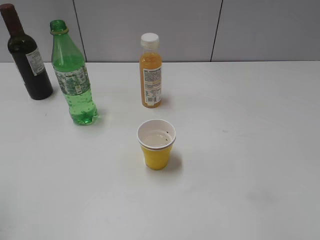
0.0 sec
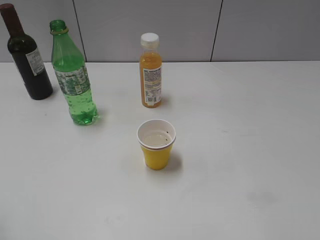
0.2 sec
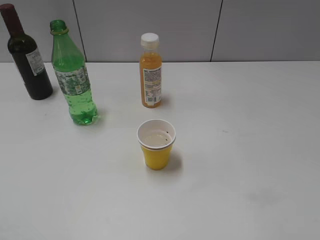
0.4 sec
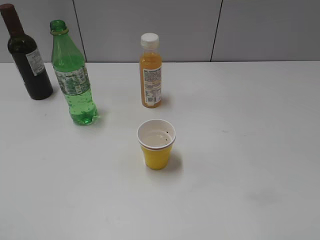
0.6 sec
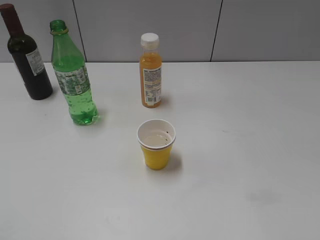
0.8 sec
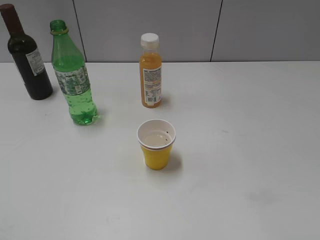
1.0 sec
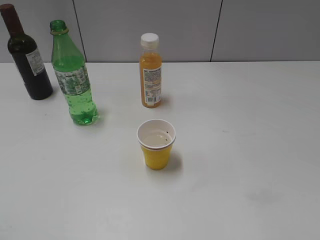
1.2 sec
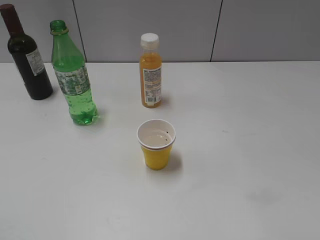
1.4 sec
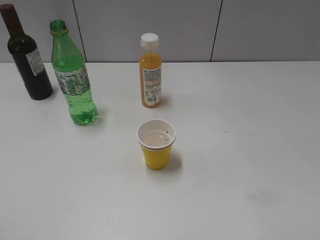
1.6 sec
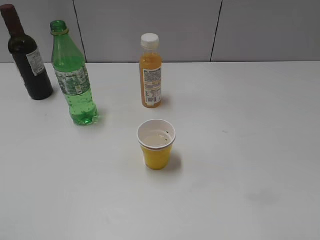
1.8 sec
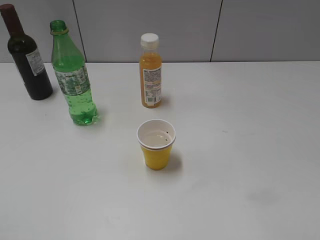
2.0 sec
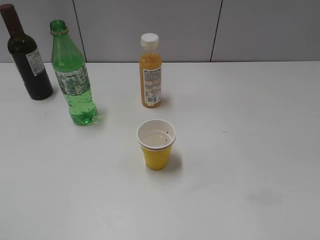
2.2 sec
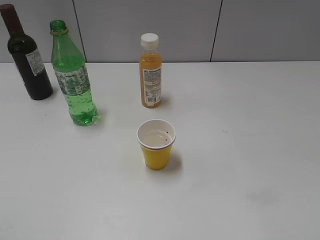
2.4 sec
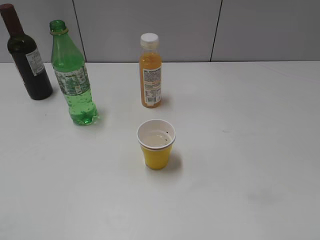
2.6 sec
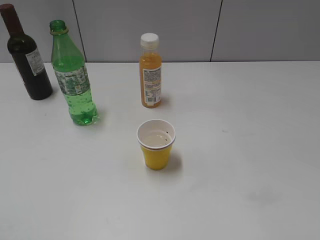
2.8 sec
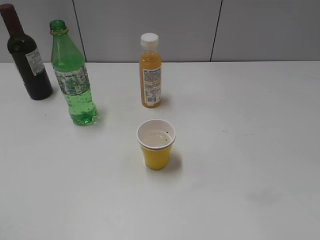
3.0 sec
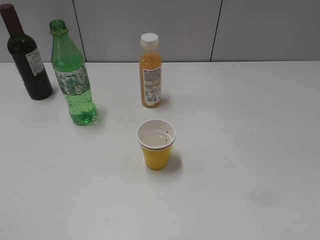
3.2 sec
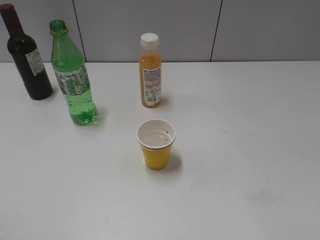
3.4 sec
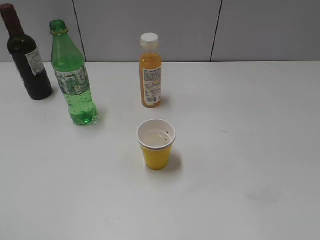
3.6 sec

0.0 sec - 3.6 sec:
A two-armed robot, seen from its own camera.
1.8 sec - 3.6 sec: Neither gripper changes place.

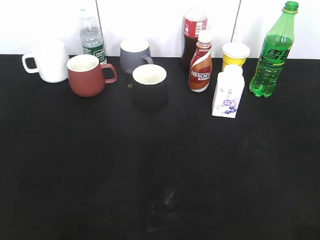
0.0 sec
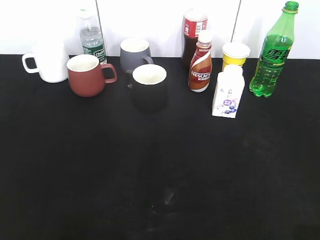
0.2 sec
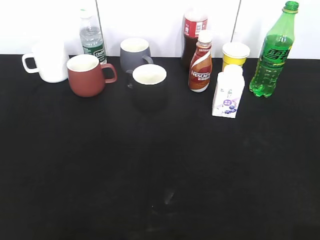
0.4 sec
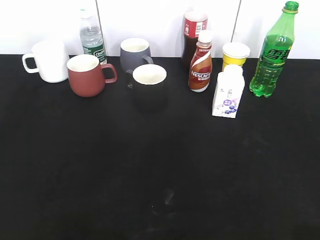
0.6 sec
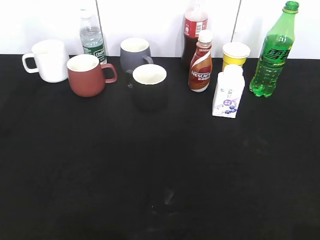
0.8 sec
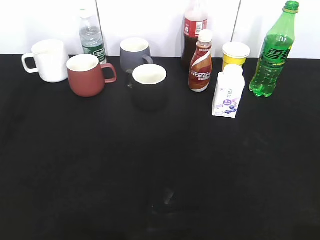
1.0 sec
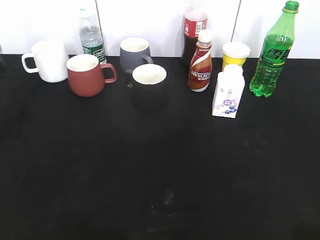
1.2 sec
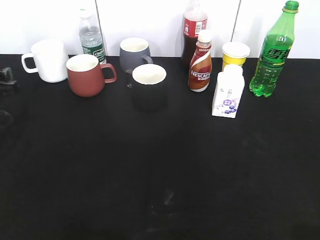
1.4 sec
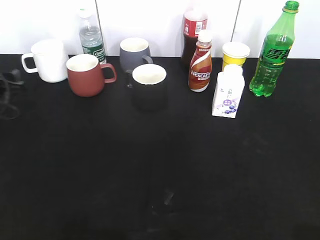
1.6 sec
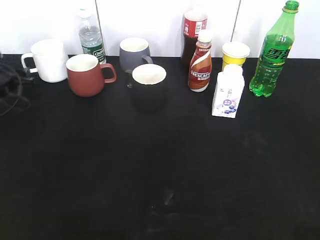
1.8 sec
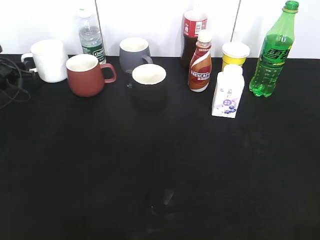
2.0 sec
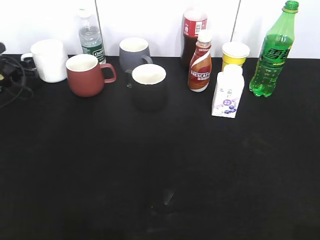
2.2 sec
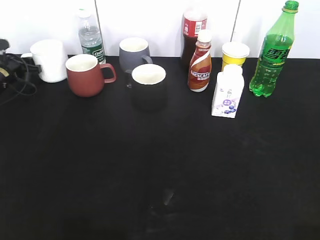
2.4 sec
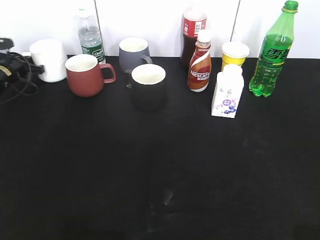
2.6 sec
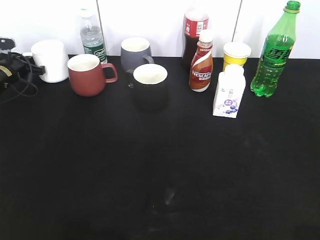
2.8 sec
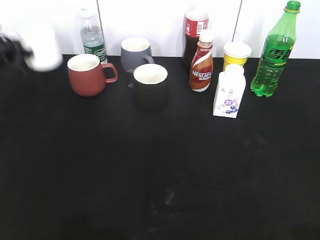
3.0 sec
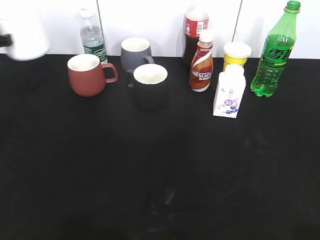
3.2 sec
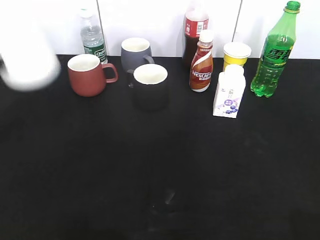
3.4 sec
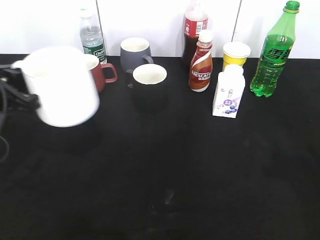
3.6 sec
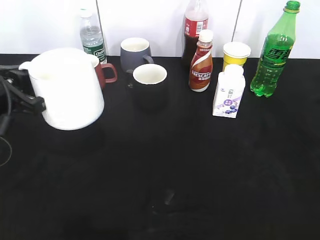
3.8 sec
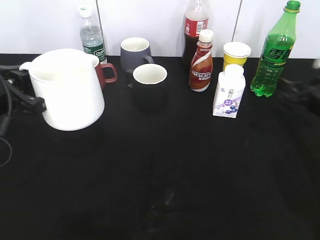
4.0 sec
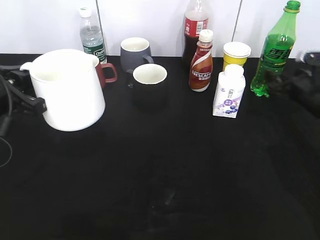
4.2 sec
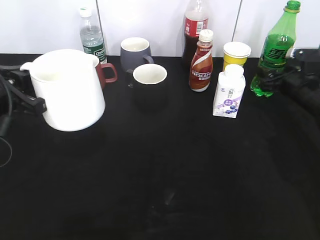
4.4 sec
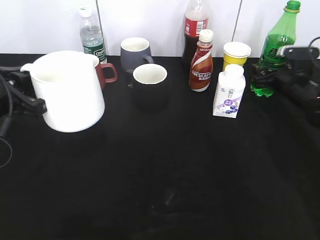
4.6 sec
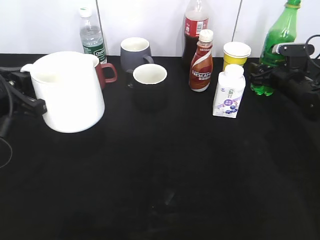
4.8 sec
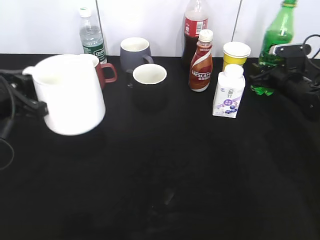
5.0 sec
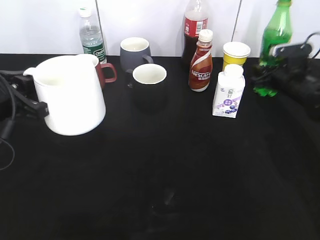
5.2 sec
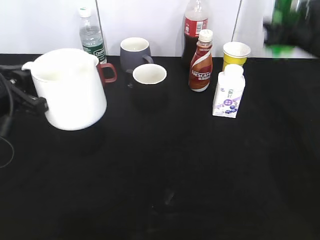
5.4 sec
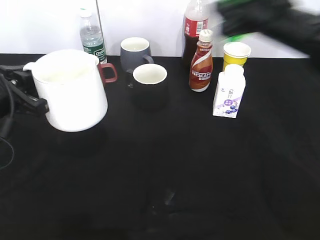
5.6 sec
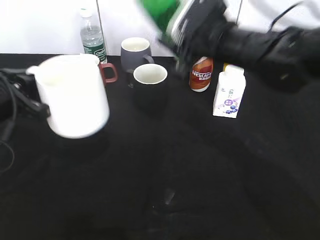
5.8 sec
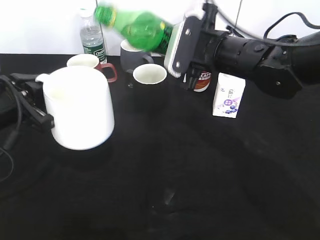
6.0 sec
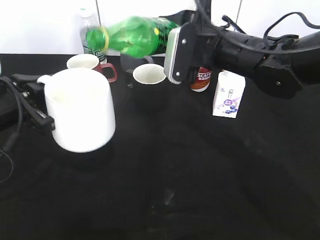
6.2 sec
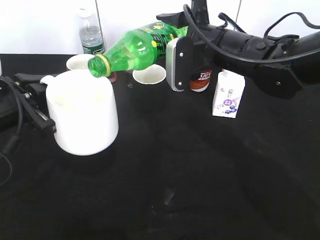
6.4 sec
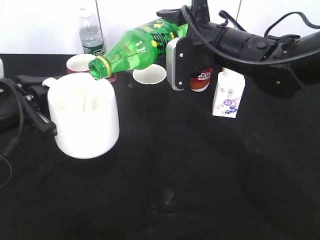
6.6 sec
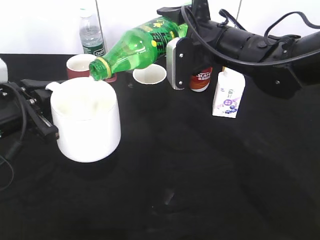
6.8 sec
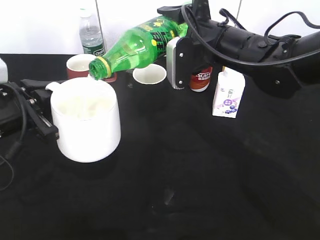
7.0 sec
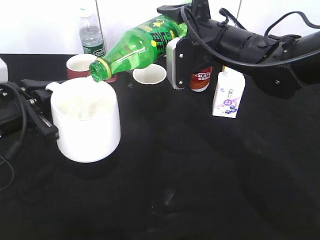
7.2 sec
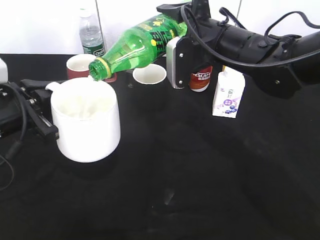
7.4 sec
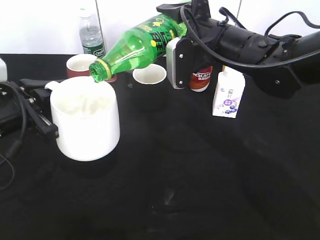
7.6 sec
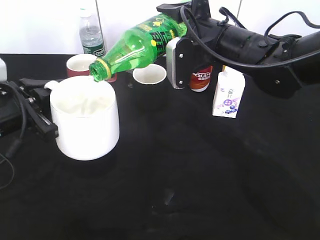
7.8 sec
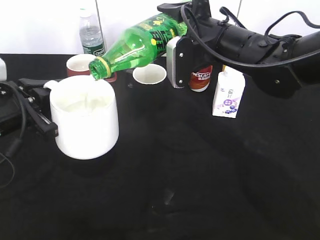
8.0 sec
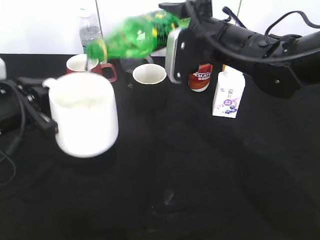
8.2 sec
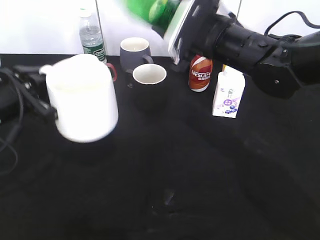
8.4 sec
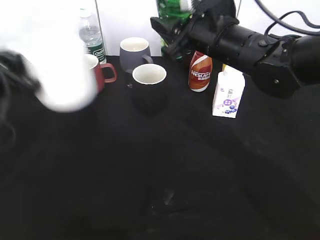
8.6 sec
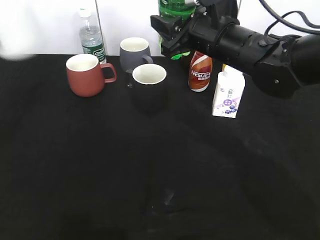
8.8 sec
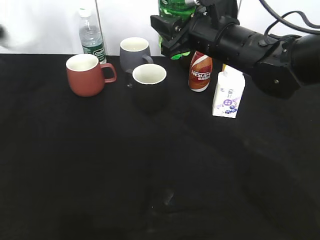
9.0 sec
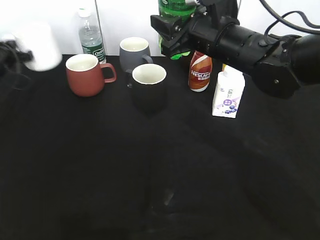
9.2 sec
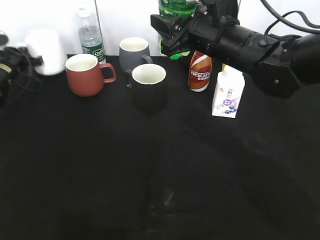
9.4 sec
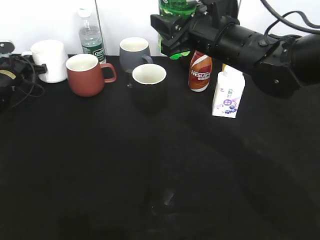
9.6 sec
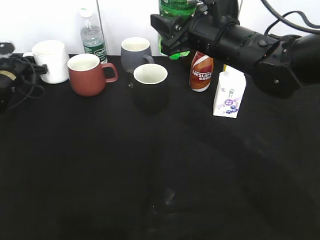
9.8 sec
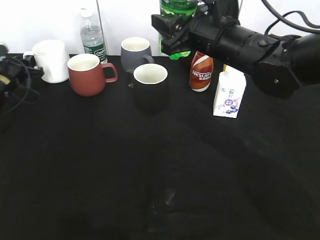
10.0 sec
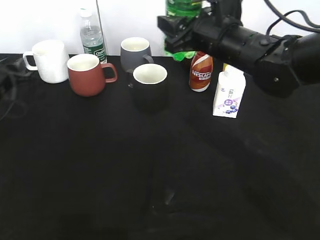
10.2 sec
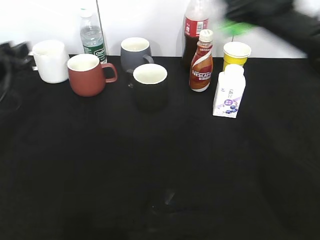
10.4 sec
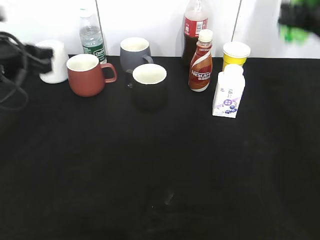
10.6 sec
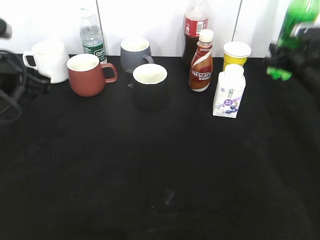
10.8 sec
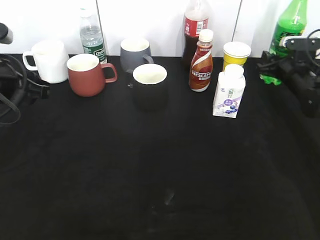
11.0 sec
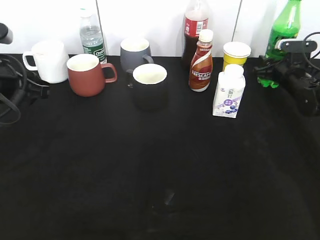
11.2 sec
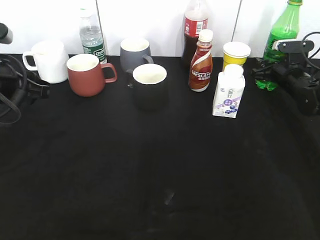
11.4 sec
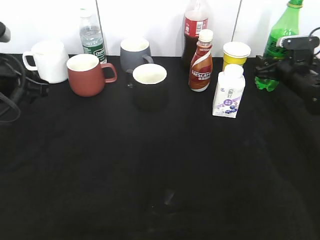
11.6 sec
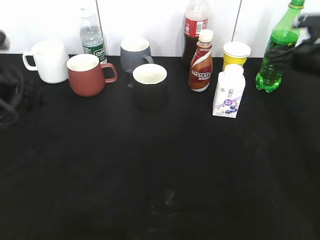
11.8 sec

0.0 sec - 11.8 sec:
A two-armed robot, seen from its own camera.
Step, 2.8 sec - 3.6 sec: Lift the white cup with left gripper.
Step, 3.8 sec - 5.0 sec: Grasp the bottle with sprite with right gripper.
Step, 5.2 sec - 8.2 sec: Pour the sprite from bottle to cup with right gripper.
Step, 8.6 sec - 10.0 sec: Place the white cup on the table with left gripper.
Step, 10.2 sec - 11.6 sec: Place the sprite bottle on the table with right gripper.
0.0 sec - 1.4 sec: The left gripper shifts about 35 cm forward and downward.
1.4 sec - 3.0 sec: The left gripper is displaced forward by about 15 cm, and closes up.
3.0 sec - 4.4 sec: The left gripper travels backward and to the right by some 30 cm; the right gripper moves forward and downward, about 50 cm, and opens.
4.4 sec - 6.0 sec: The right gripper heads to the left and upward, covering approximately 25 cm, and closes up.
7.4 sec - 8.8 sec: The left gripper heads to the left and forward, covering some 15 cm.
8.8 sec - 10.4 sec: The left gripper is displaced downward by roughly 5 cm, reaches approximately 20 cm forward, then returns, and opens its fingers. The right gripper travels to the right by approximately 10 cm.
10.4 sec - 11.8 sec: The left gripper shifts about 5 cm backward; the right gripper is displaced to the right and downward by approximately 15 cm, and opens.

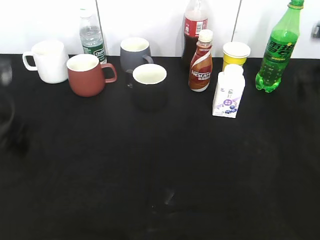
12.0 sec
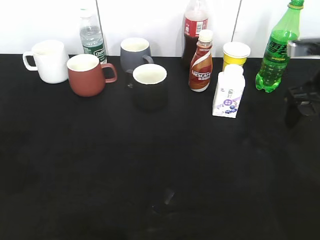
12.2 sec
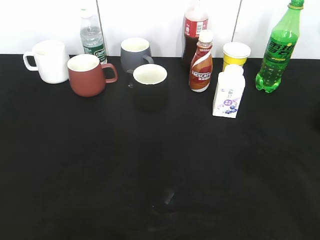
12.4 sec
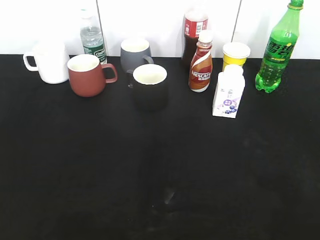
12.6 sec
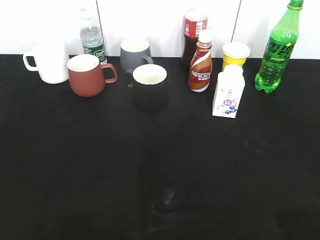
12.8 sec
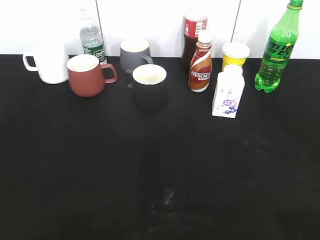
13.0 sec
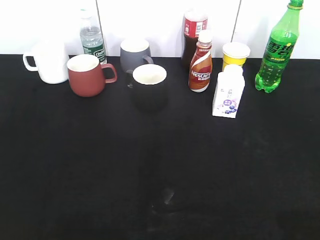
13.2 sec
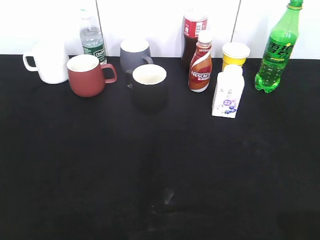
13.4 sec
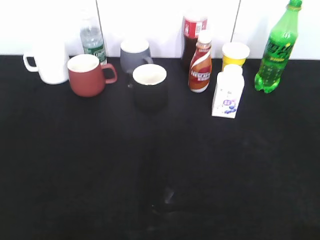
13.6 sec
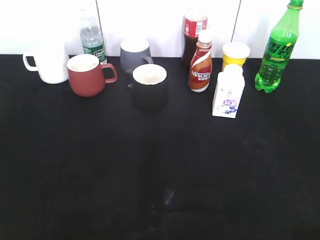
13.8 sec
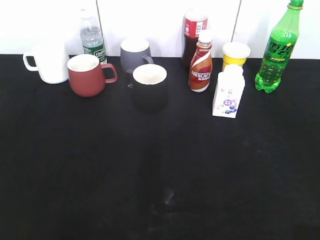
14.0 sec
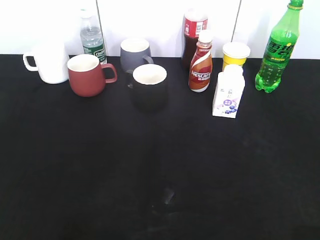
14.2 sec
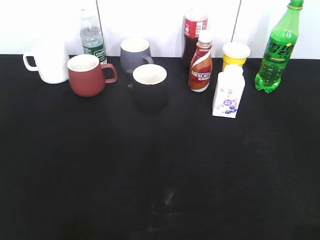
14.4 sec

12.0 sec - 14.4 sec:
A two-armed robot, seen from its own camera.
12.0 sec - 13.2 sec: Both grippers travel together backward, approximately 30 cm.

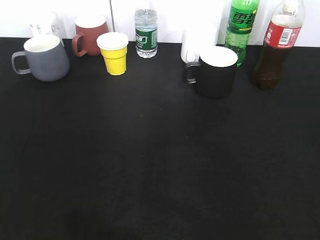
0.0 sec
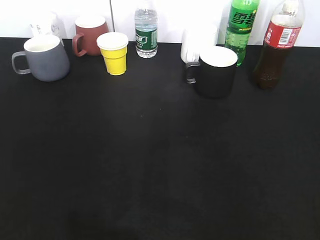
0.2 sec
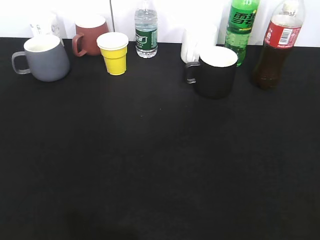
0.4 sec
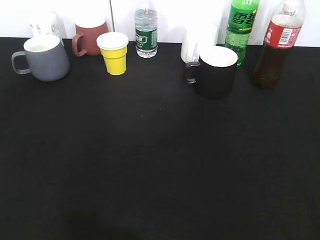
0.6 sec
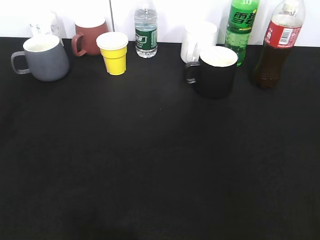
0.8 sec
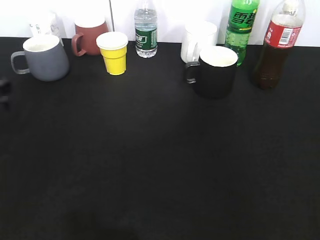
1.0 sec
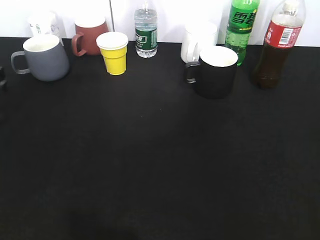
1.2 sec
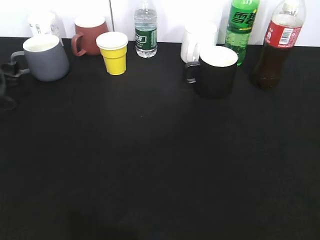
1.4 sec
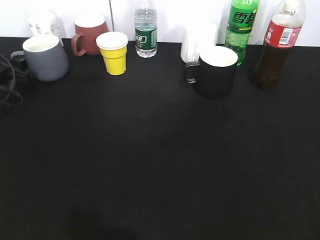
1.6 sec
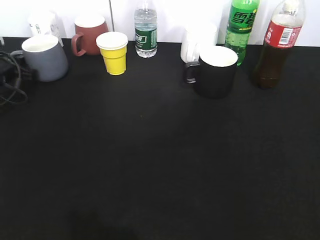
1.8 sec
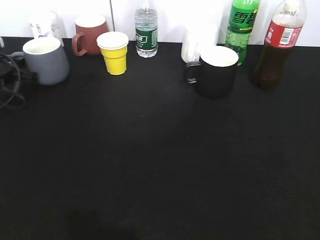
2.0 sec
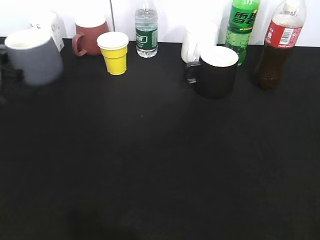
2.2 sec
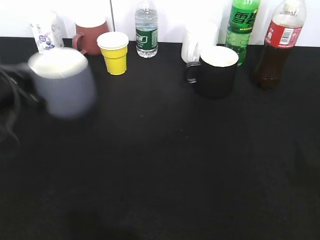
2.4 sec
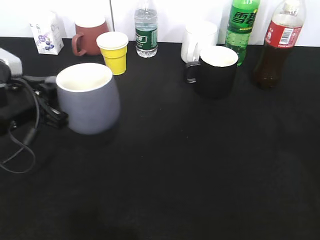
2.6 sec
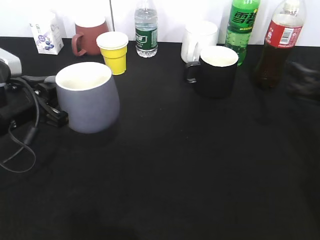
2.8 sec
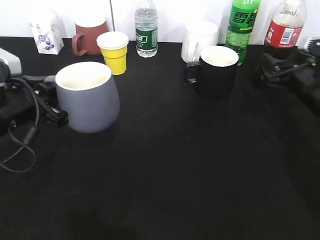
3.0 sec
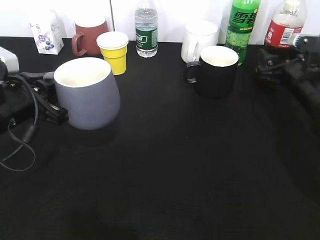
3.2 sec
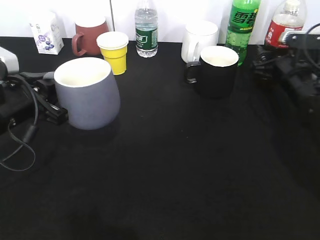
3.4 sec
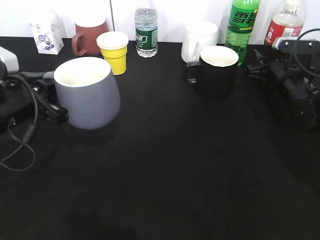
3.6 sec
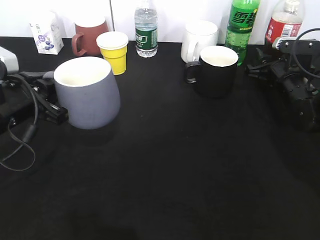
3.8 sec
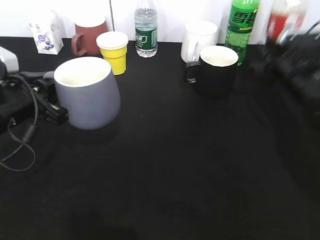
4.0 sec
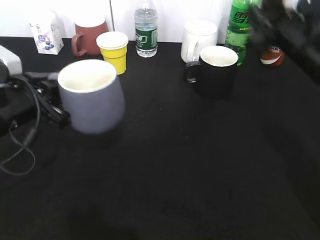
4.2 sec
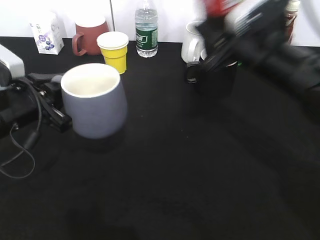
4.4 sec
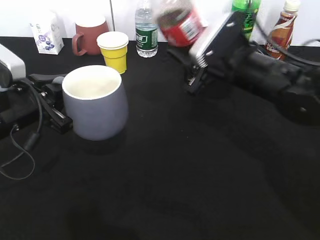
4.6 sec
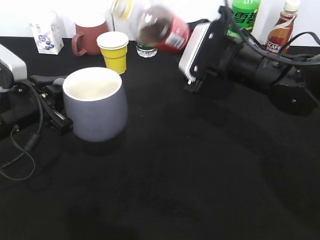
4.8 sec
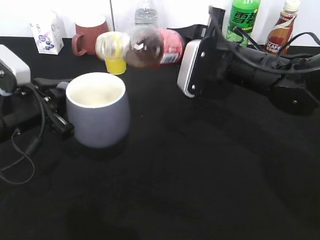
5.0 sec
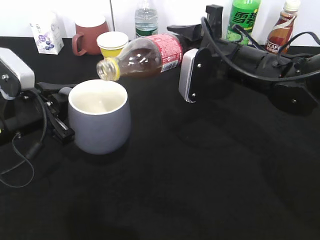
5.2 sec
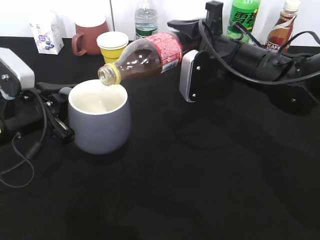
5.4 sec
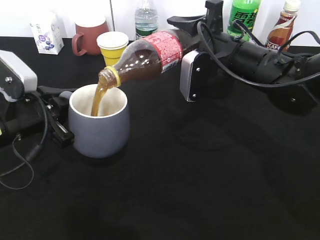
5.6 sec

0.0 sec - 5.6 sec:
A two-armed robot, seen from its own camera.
Step, 2.2 sec - 2.4 sec: Lift the grey cup with left gripper.
Step, 2.6 sec - 3.8 sec: Grasp the bottle with cola with right gripper.
0.0 sec - 1.4 sec: The left gripper heads forward, covering approximately 40 cm.
1.4 sec - 2.8 sec: The right gripper is displaced forward and downward by roughly 30 cm; the left gripper heads backward and to the right, covering about 20 cm, and closes its fingers.
2.8 sec - 4.2 sec: The right gripper heads to the left, upward and forward, covering roughly 10 cm, and closes its fingers.
4.2 sec - 5.6 sec: The right gripper moves to the left, approximately 10 cm.
